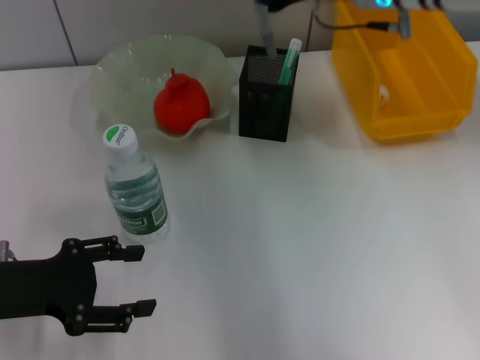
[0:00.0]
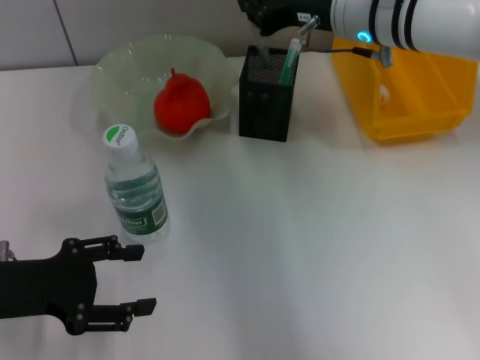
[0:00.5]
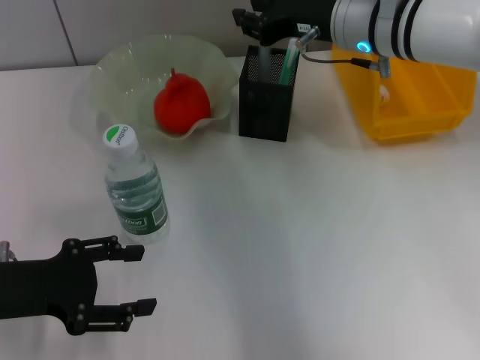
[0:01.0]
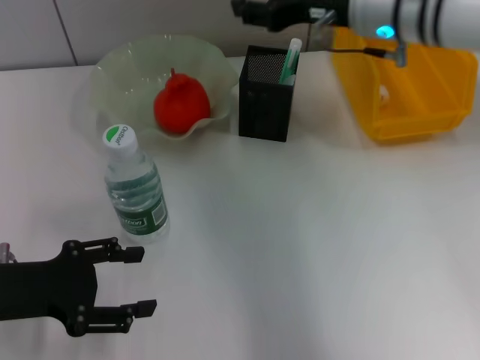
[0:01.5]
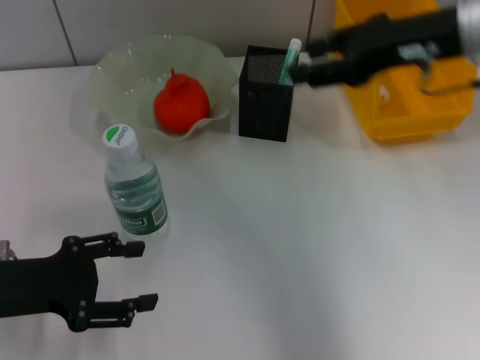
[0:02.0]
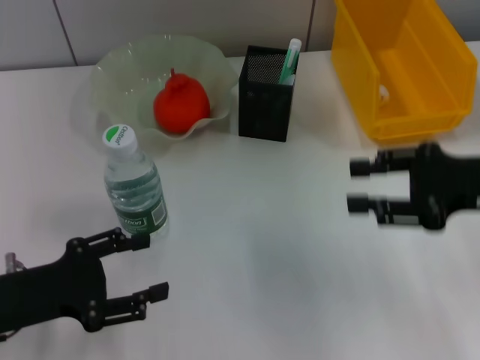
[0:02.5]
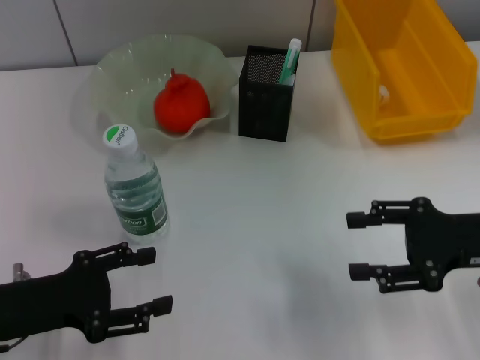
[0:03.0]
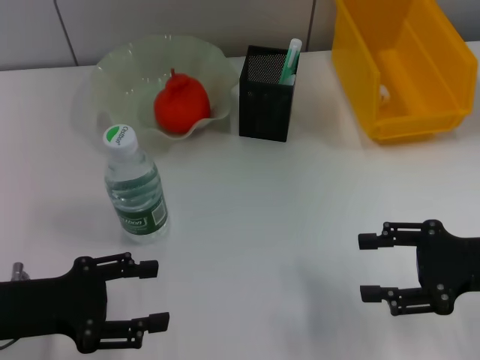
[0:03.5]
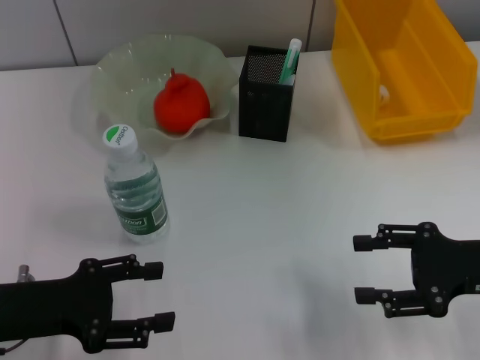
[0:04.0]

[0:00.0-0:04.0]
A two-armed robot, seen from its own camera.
0:00.0 to 0:02.0: The right gripper moves backward and to the right, some 10 cm, and opens up.
0:02.0 to 0:04.0: The right gripper heads downward, backward and to the right, covering approximately 20 cm.

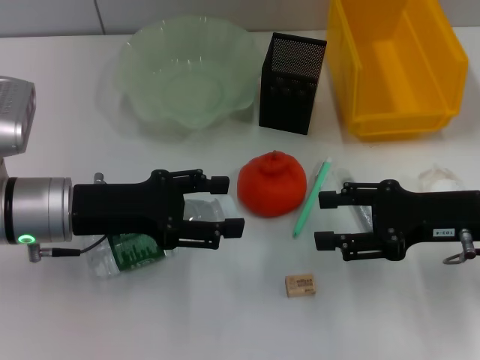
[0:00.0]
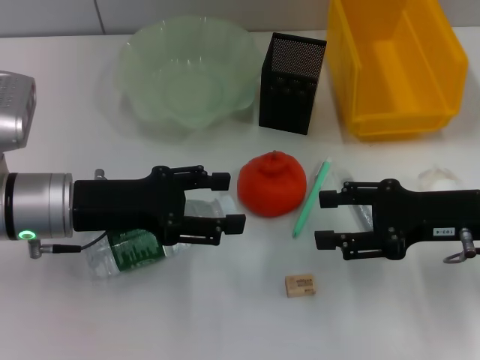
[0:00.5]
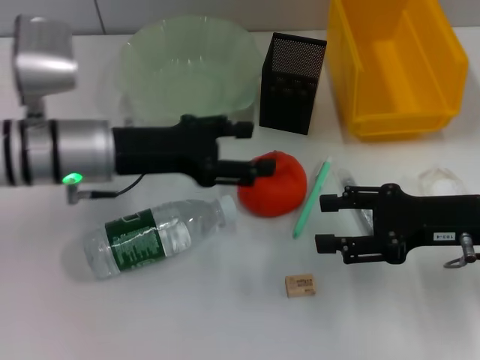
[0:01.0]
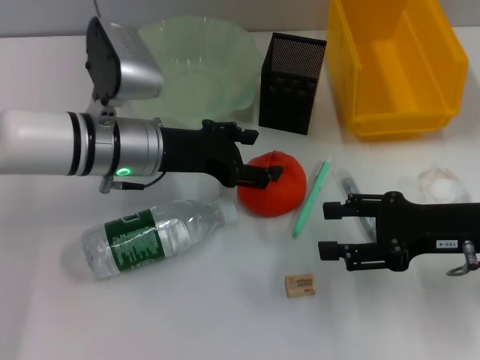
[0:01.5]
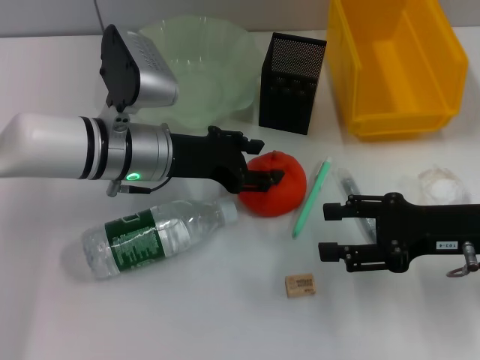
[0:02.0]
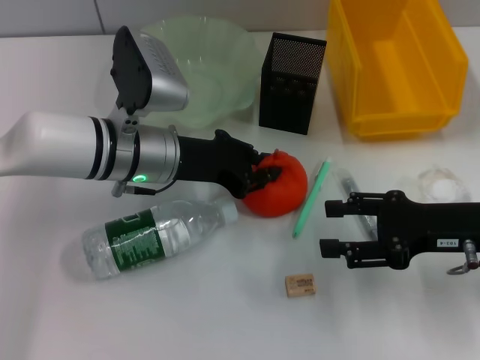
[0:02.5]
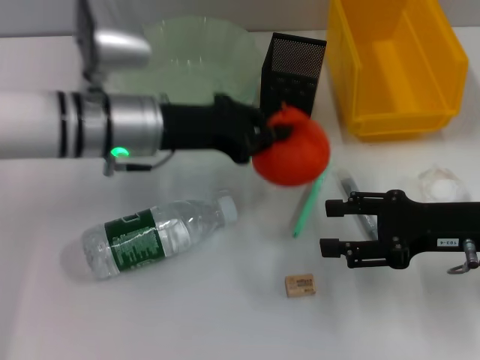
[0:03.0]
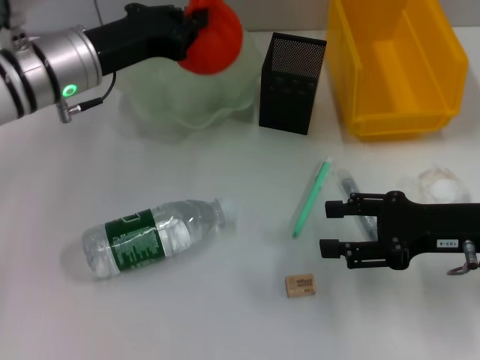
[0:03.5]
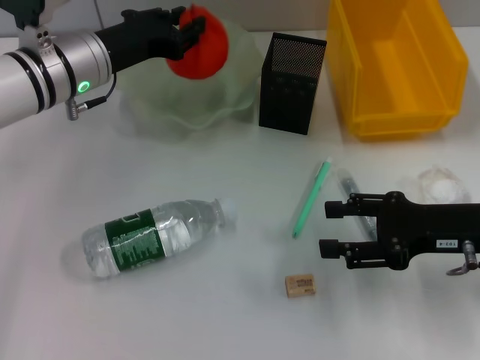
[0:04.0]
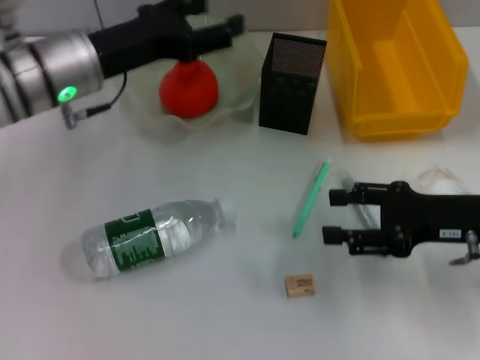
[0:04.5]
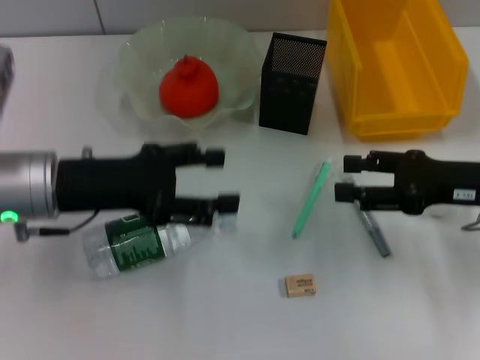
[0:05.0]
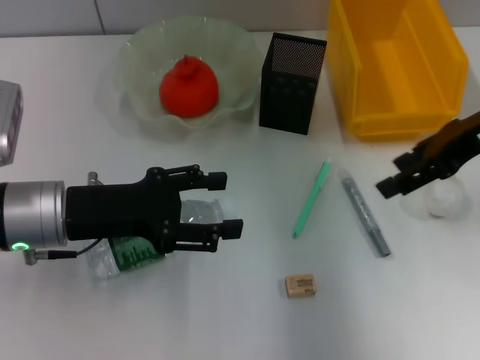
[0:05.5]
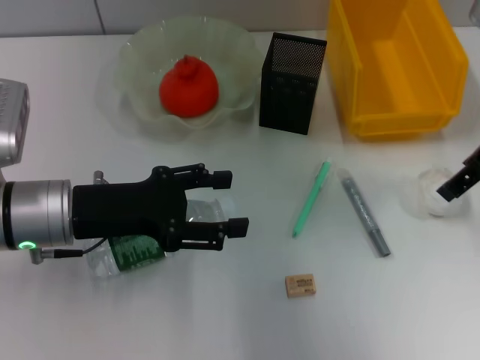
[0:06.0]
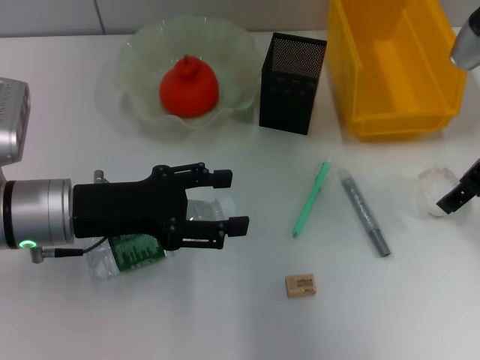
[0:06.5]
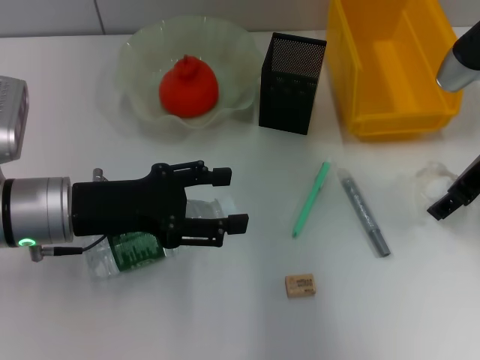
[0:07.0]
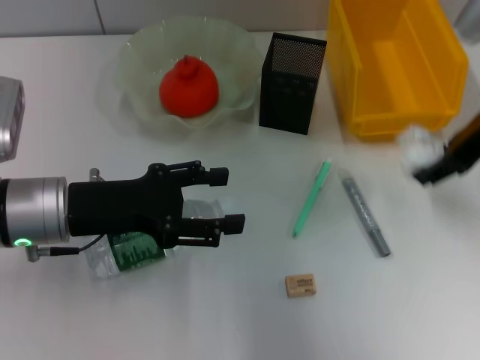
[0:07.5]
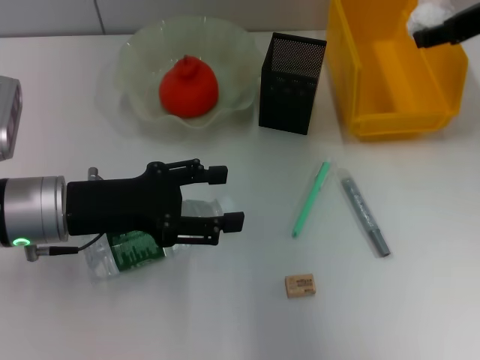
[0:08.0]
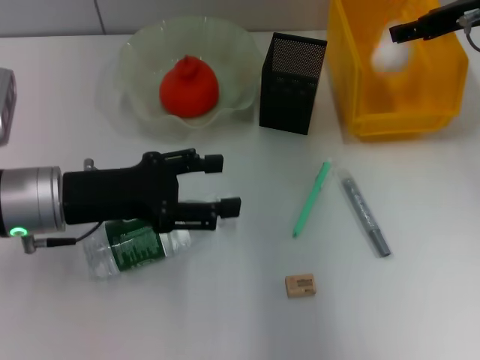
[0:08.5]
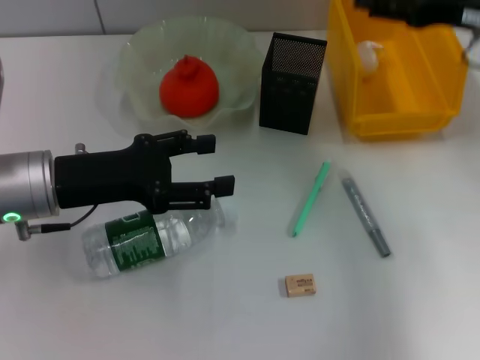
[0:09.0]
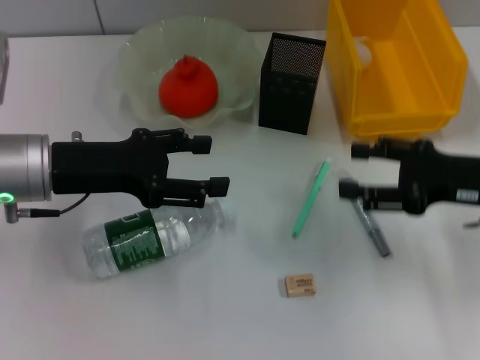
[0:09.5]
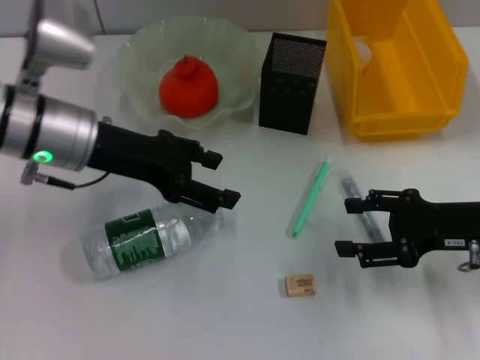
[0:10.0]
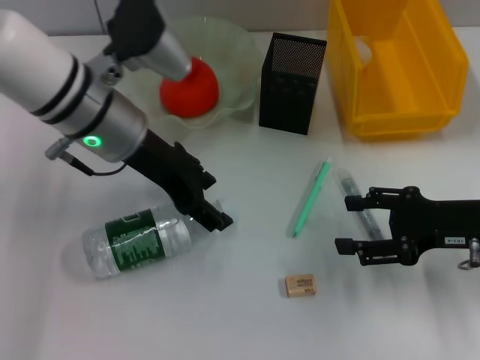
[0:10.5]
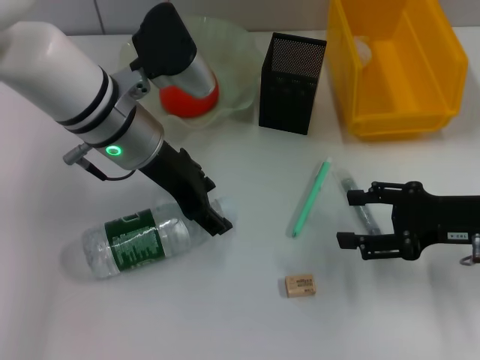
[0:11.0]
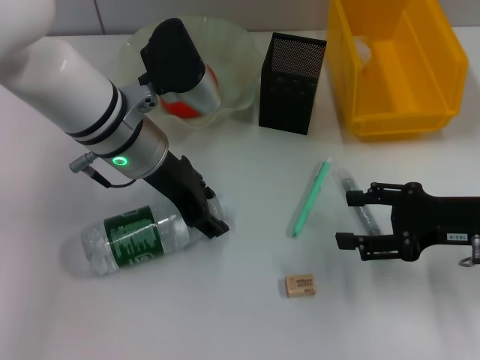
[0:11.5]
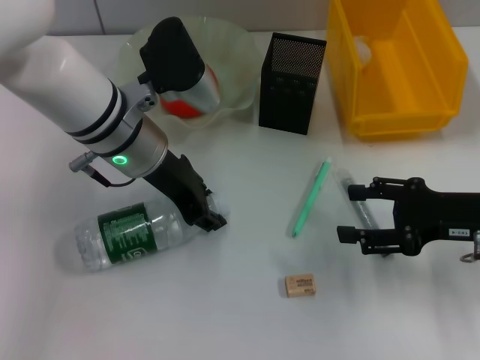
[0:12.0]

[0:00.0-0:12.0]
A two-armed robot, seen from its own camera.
Step, 0:00.0 to 0:02.5: Grab the orange with the left hand.
Step, 0:03.0 to 0:04.0: Place the orange into the fruit bowl with the left hand.
Step, 0:04.5 to 0:07.0: Grab the paper ball with the right hand.
Step, 0:07.5 to 0:08.5: Place the paper ball into the trash can with the right hand.
Step, 0:09.0 to 0:11.5: Grab the water bottle with the left hand.
0:00.0 to 0:02.0: The left gripper goes roughly 10 cm to the right and forward.
0:02.0 to 0:04.0: The left gripper heads to the left and forward, covering approximately 5 cm, and closes its fingers.
0:04.0 to 0:06.0: The left gripper is displaced backward by about 15 cm, and opens up, while the right gripper shifts approximately 15 cm upward and forward.
0:06.0 to 0:08.0: The right gripper goes downward and returns, about 5 cm each way.
0:08.0 to 0:10.0: The right gripper moves downward and backward, some 20 cm, and opens. Meanwhile the left gripper heads forward and upward, covering approximately 10 cm.
0:10.0 to 0:12.0: The left gripper shifts some 5 cm to the right, and closes its fingers.

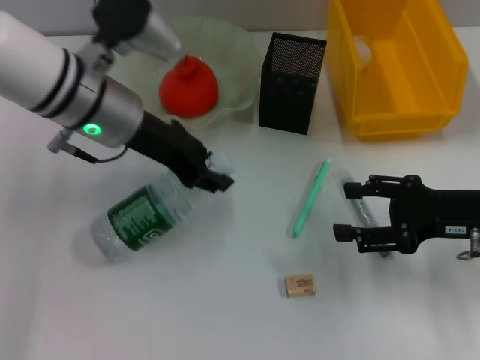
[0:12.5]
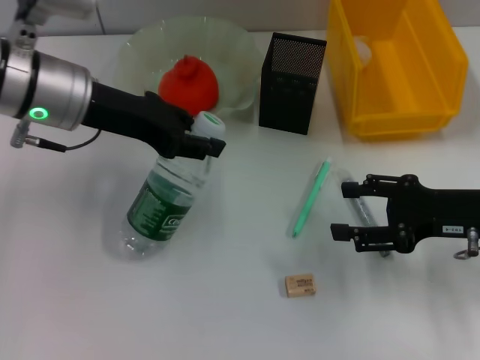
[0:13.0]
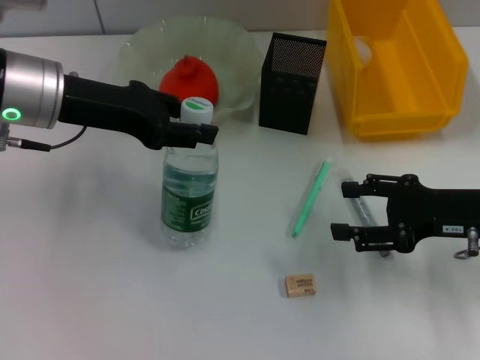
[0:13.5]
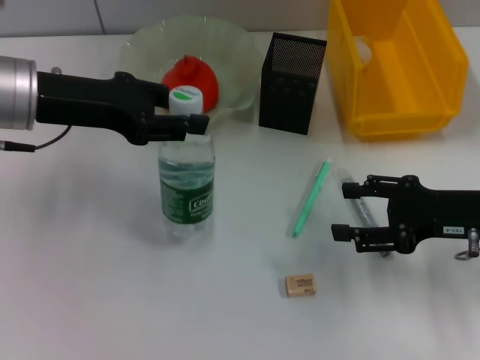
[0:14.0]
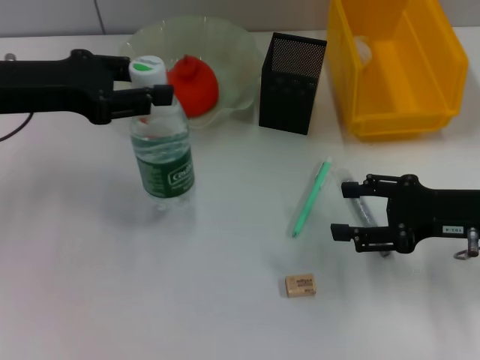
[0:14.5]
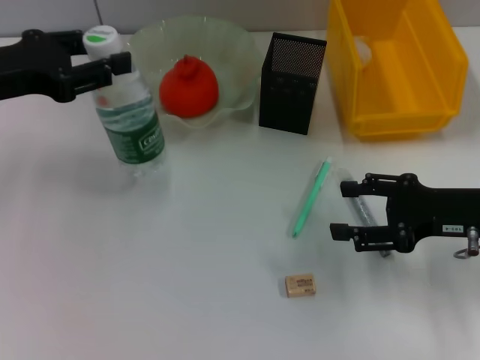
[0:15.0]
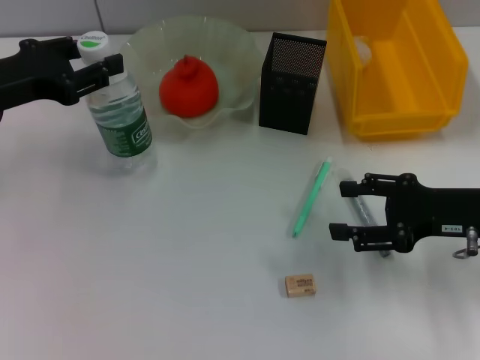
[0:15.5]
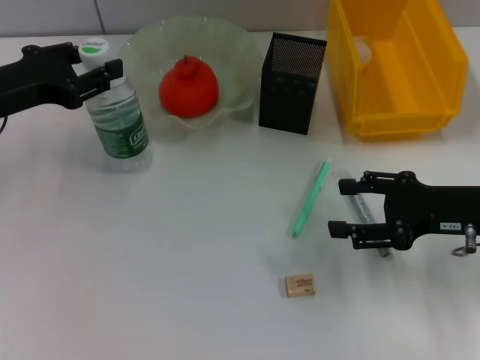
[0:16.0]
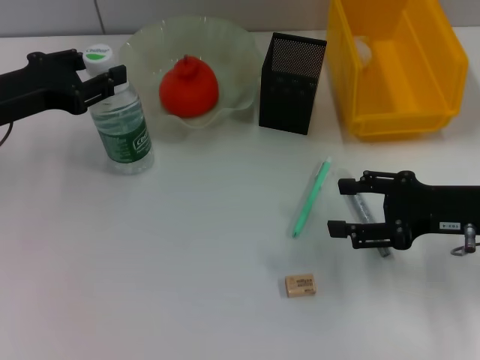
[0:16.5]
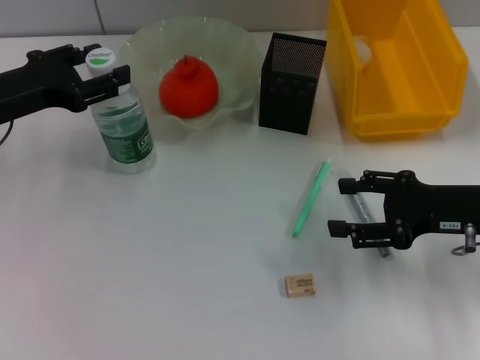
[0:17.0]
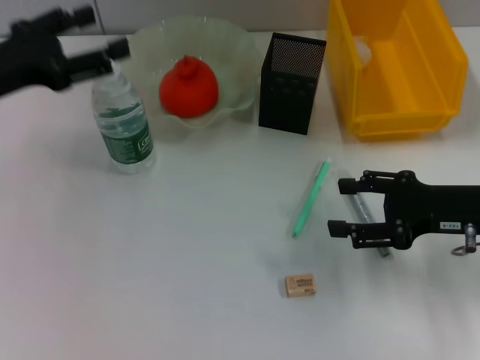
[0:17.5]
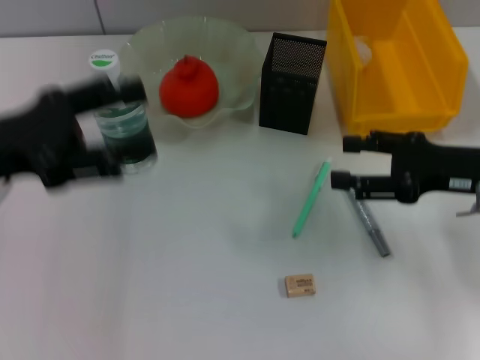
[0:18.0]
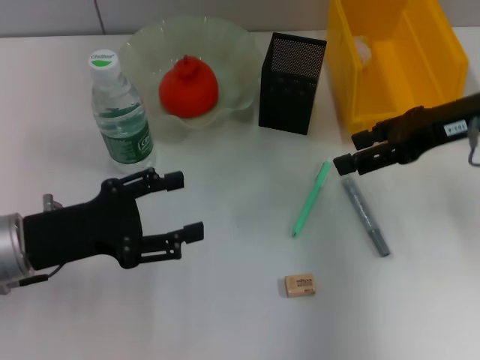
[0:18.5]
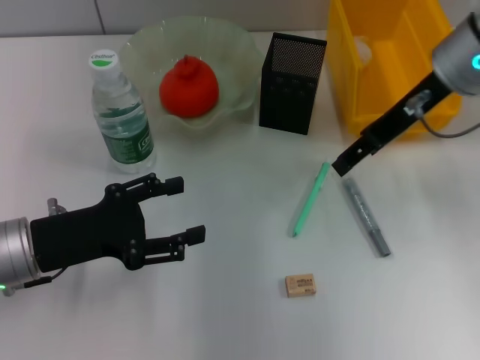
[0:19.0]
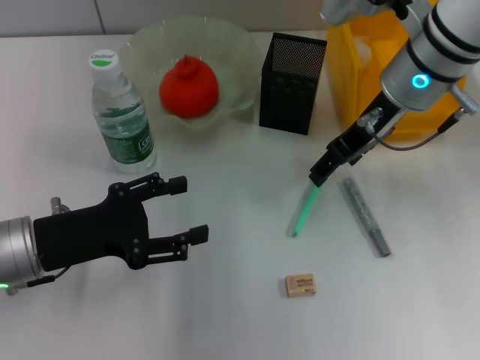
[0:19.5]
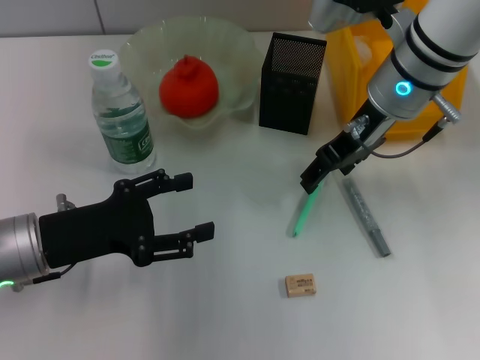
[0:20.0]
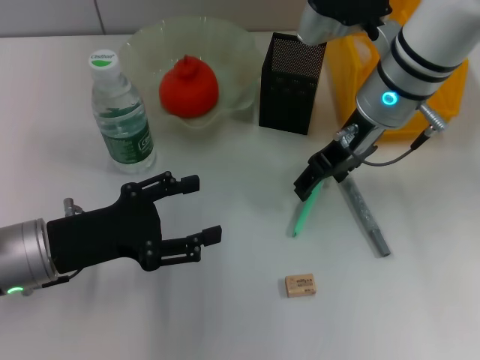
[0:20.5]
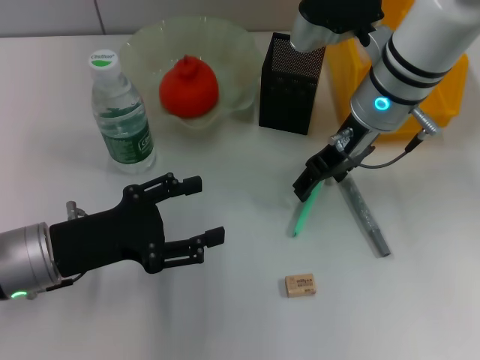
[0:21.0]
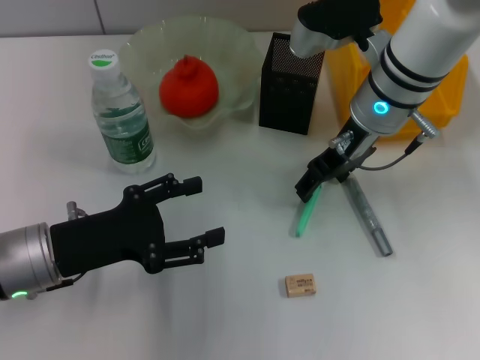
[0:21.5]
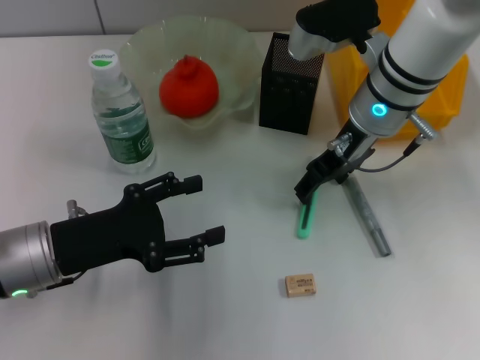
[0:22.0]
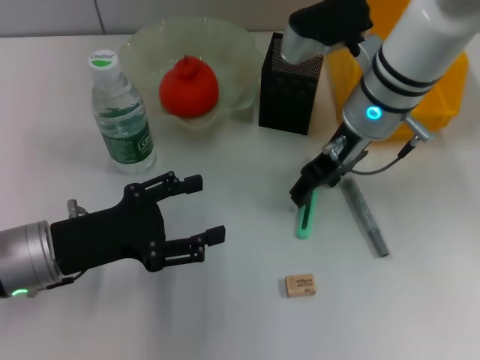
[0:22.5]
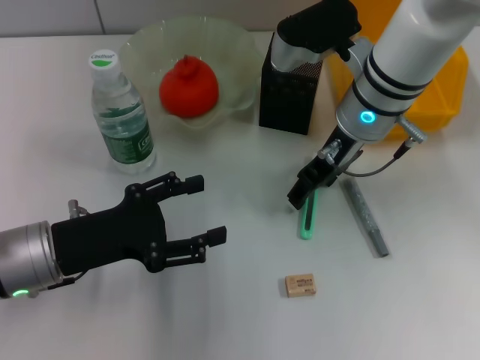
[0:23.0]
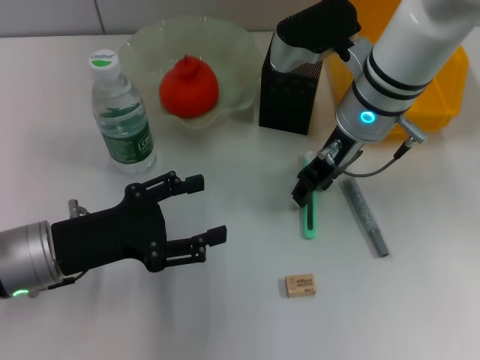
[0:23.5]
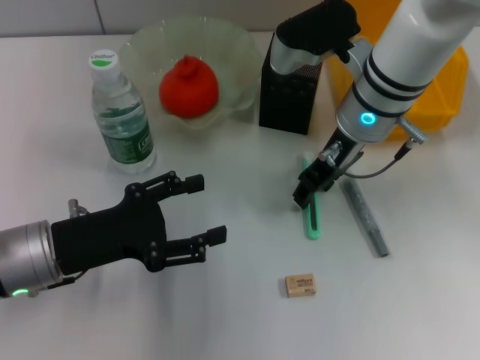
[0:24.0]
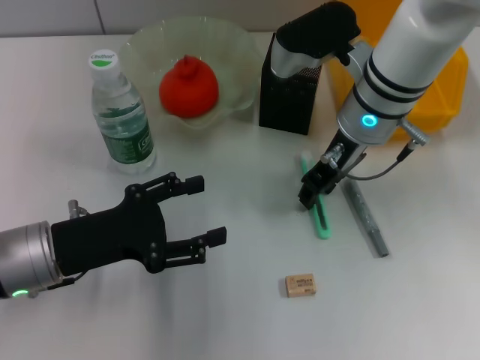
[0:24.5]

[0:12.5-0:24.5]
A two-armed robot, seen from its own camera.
Step, 0:12.5 to 0:17.0: Place the water bottle on the table with the left hand.
0:12.5 to 0:14.5: The left gripper travels to the left by about 10 cm.
0:14.5 to 0:16.5: The left gripper is displaced downward by approximately 5 cm.
0:16.5 to 0:18.5: The right gripper shifts some 10 cm upward and forward. Meanwhile the left gripper travels backward and downward by about 10 cm, and opens up.
0:18.5 to 0:20.5: The right gripper shifts about 10 cm to the left.
0:20.5 to 0:22.5: The grippers make only small movements.
0:22.5 to 0:24.5: The right gripper closes.
